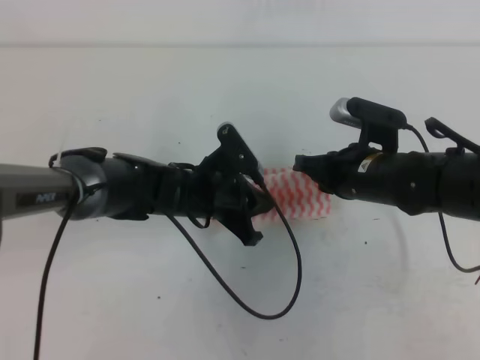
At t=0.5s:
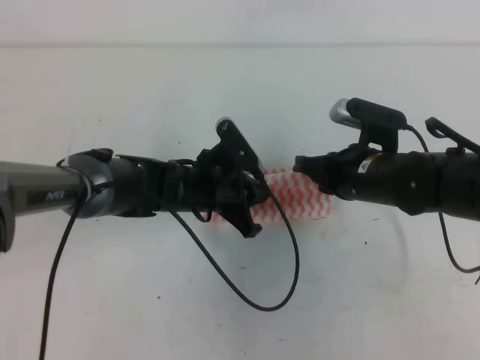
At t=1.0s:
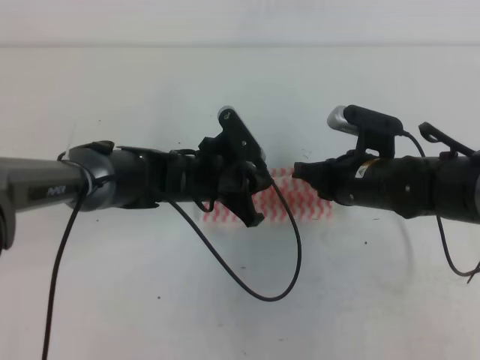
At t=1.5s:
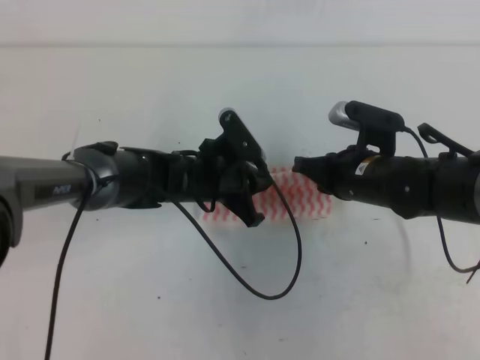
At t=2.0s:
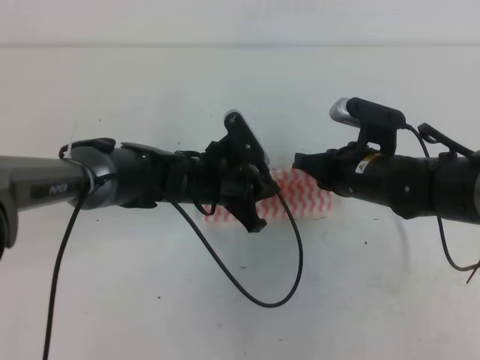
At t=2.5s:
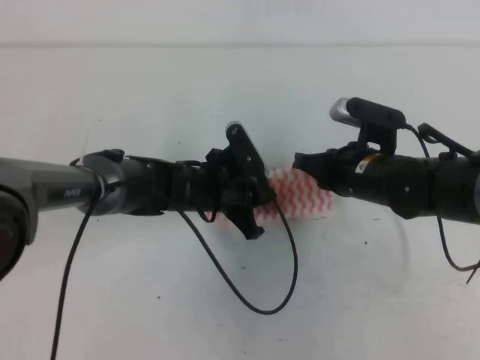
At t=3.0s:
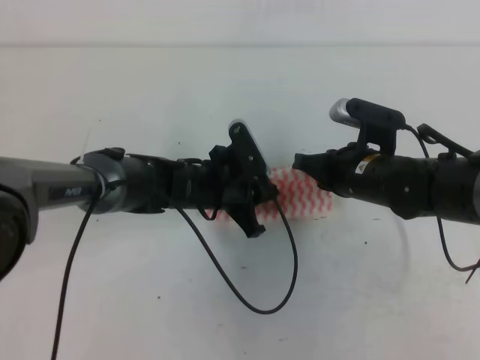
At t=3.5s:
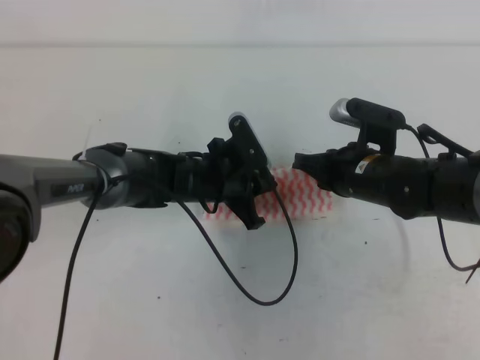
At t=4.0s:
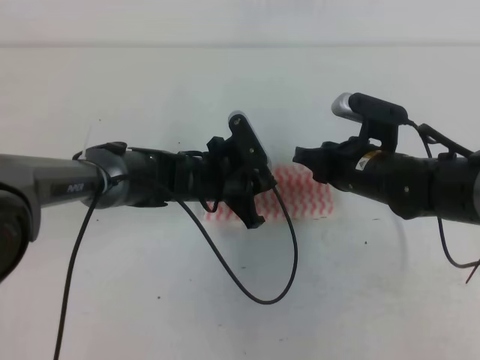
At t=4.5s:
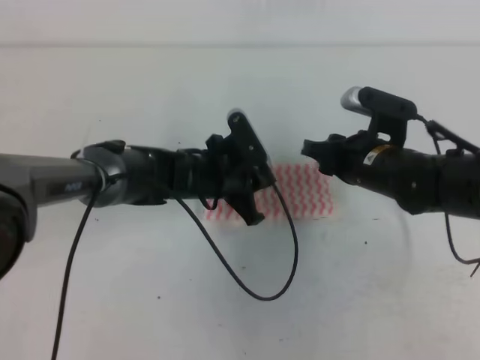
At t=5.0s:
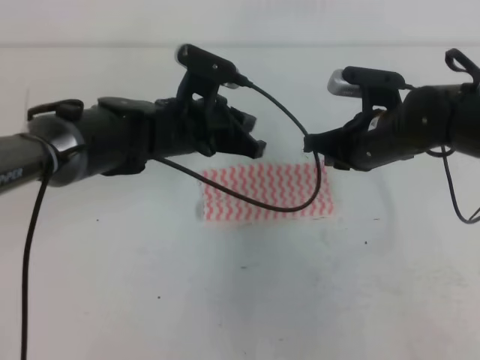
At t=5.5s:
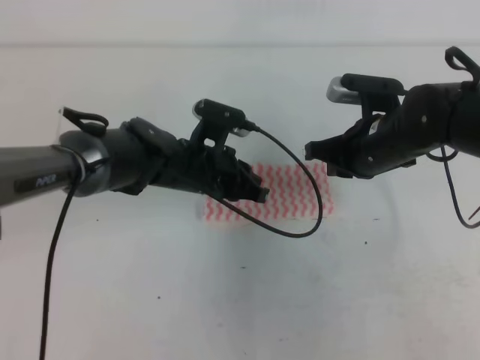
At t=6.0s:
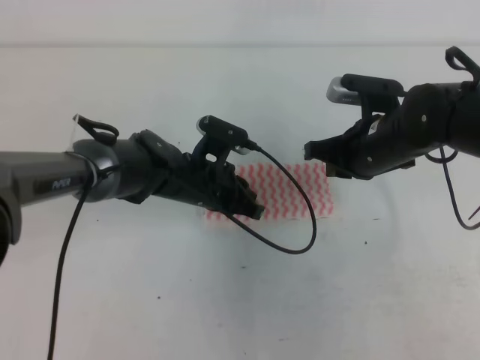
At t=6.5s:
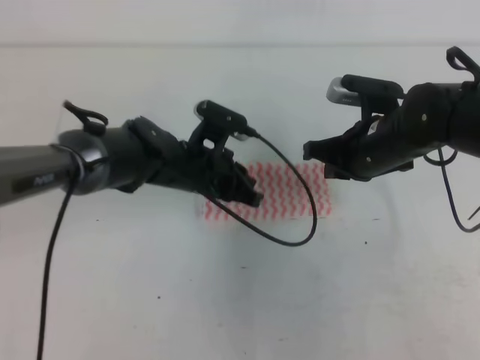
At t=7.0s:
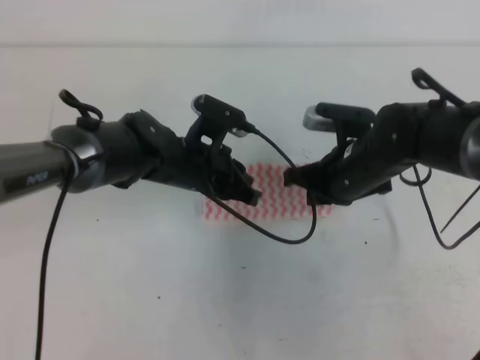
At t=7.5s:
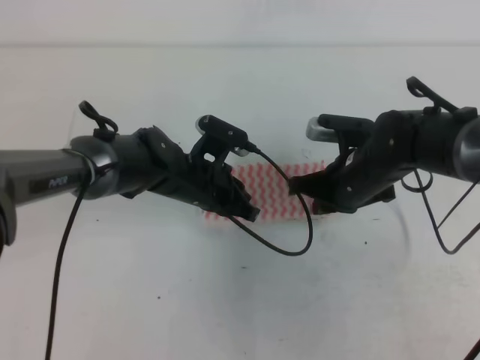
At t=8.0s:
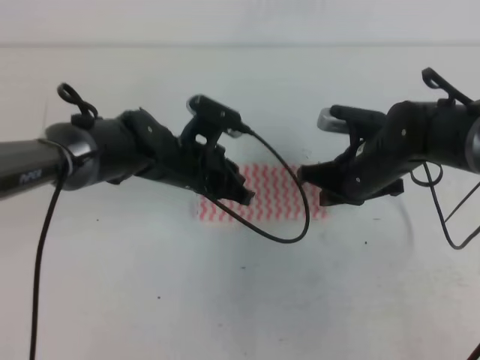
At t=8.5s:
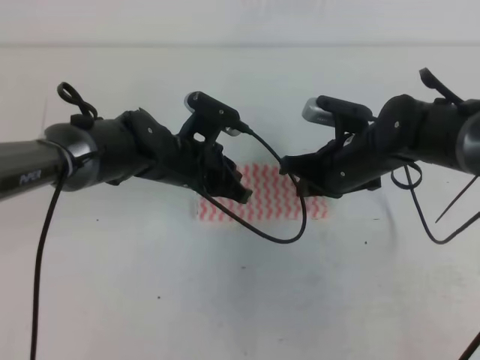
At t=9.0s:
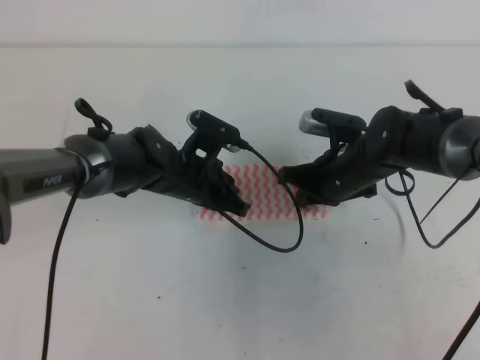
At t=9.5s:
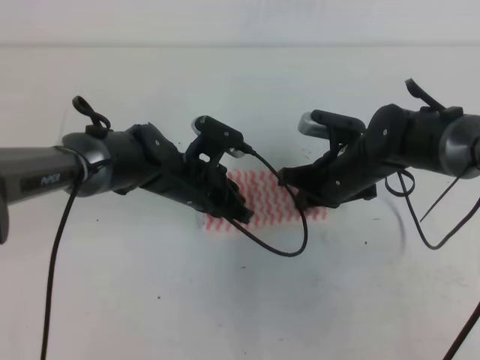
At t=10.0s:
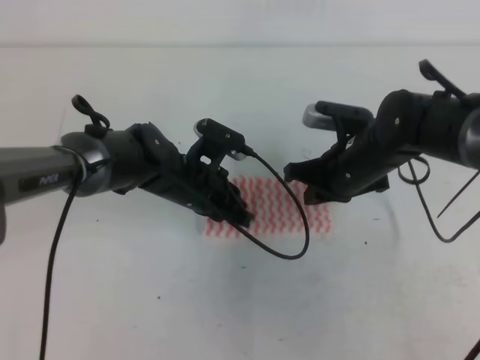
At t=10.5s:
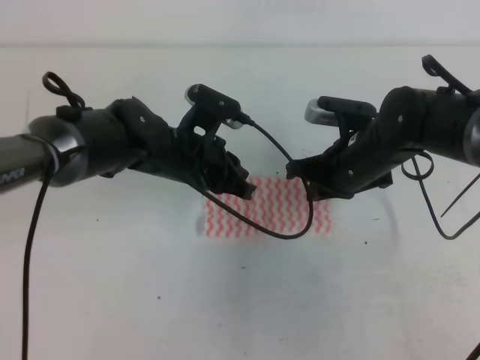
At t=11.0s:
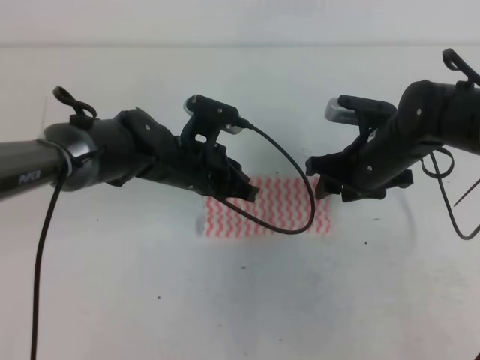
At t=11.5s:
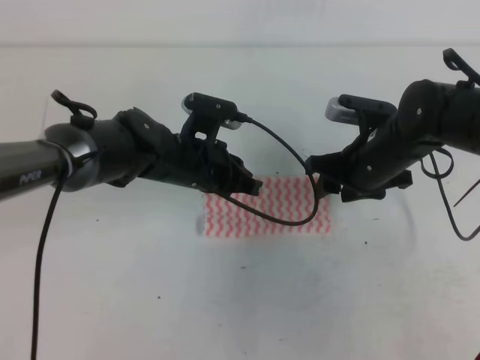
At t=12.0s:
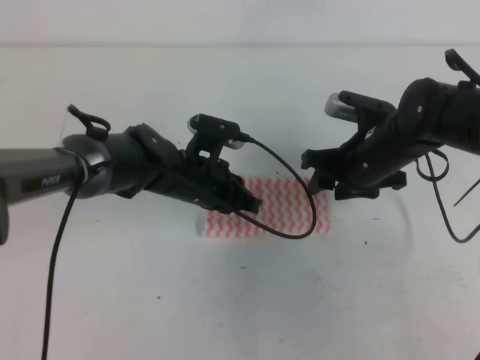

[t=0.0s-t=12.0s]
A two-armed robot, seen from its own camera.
Step, t=0.0s to t=5.0s: Fold the towel from right to left with the right gripper.
Step, t=5.5s to t=9.0s: Tidy up the towels.
t=0.0s to t=2.0s: The grippers move only a little.
t=2.0s to t=4.0s: The right gripper opens its fingers.
t=4.0s to t=6.0s: The right gripper closes its fingers. Meanwhile the left gripper travels upward and back again, some 10 cm each way.
t=8.0s to t=10.0s: There are only small adjustments of the grippers.
t=10.0s to t=12.0s: The right gripper opens up.

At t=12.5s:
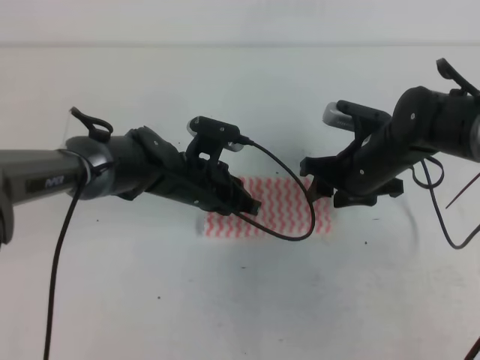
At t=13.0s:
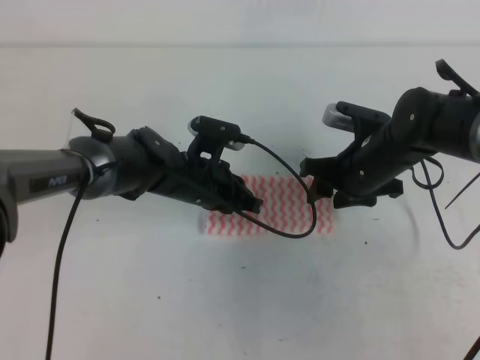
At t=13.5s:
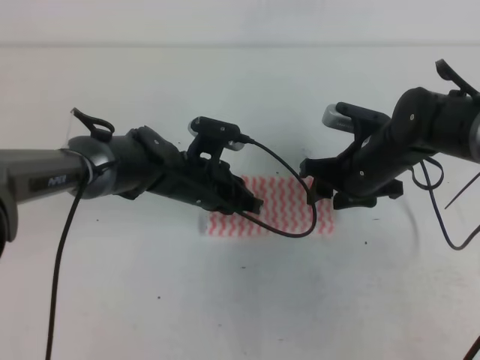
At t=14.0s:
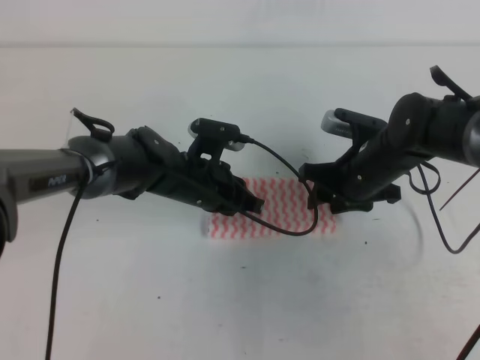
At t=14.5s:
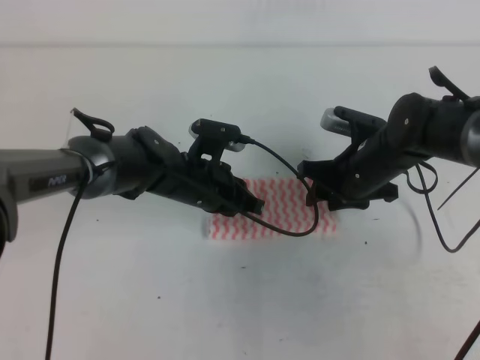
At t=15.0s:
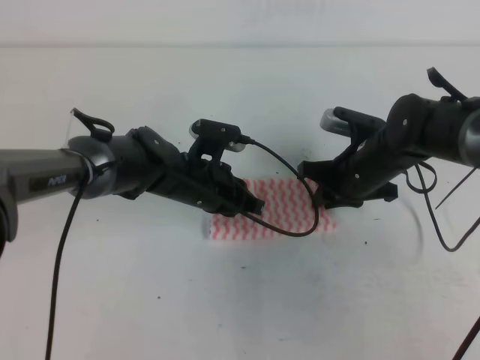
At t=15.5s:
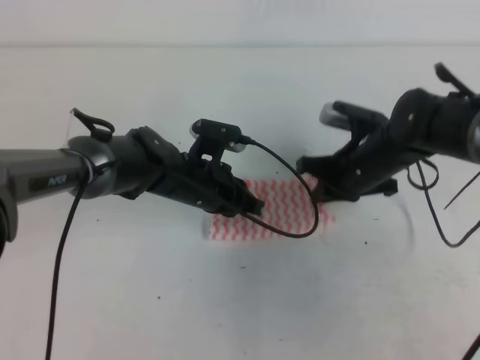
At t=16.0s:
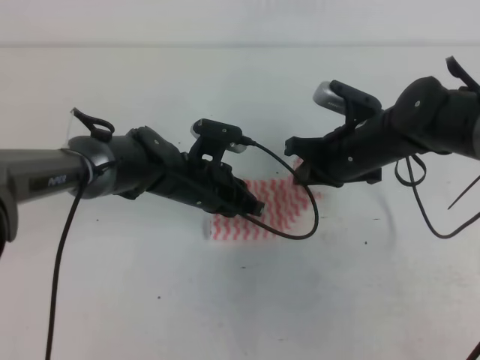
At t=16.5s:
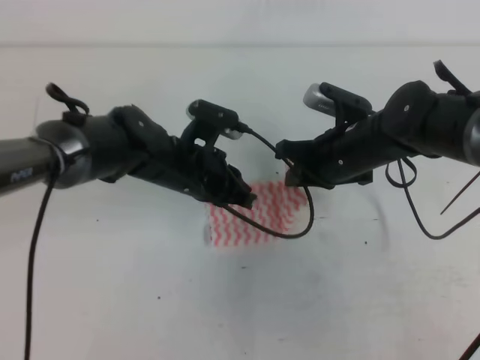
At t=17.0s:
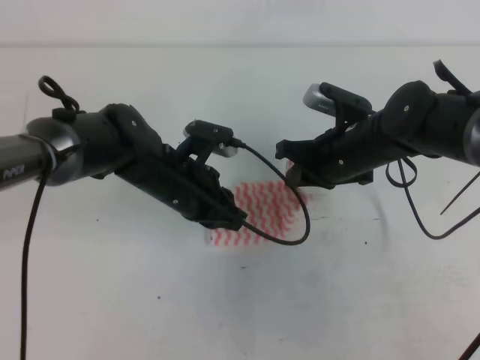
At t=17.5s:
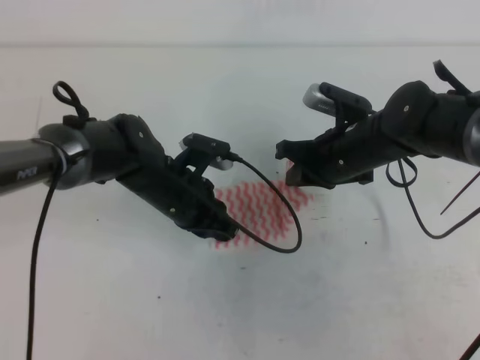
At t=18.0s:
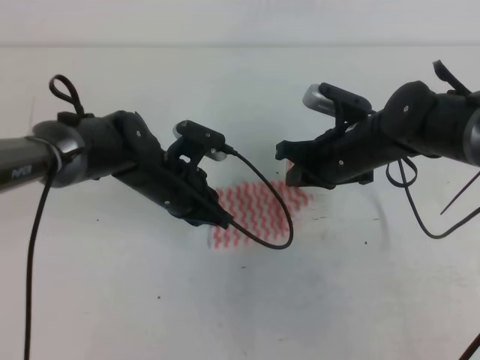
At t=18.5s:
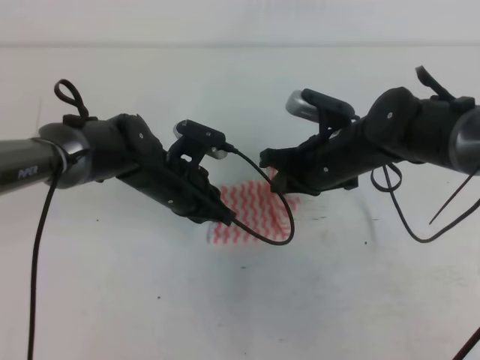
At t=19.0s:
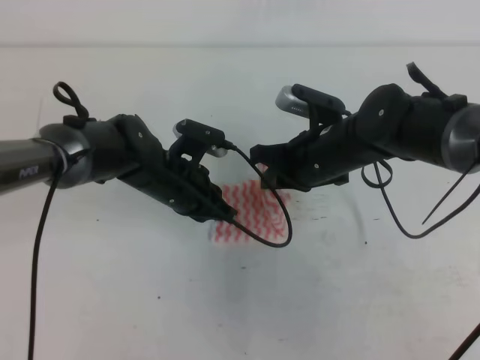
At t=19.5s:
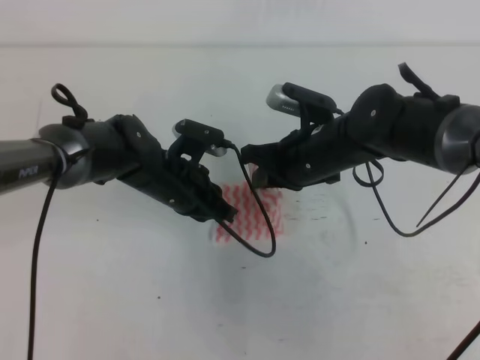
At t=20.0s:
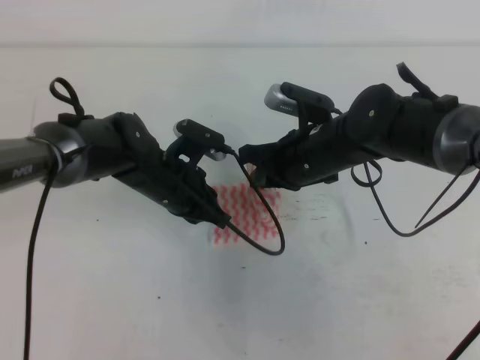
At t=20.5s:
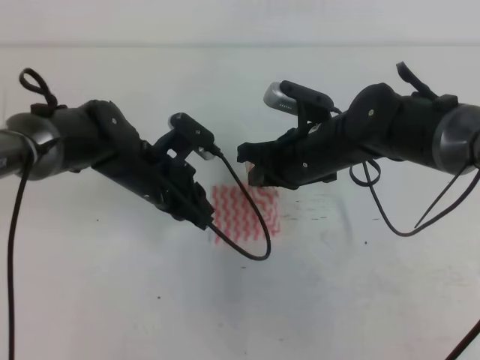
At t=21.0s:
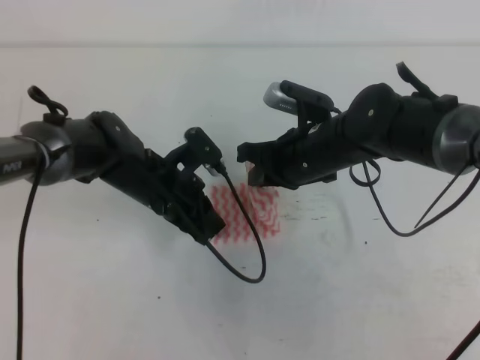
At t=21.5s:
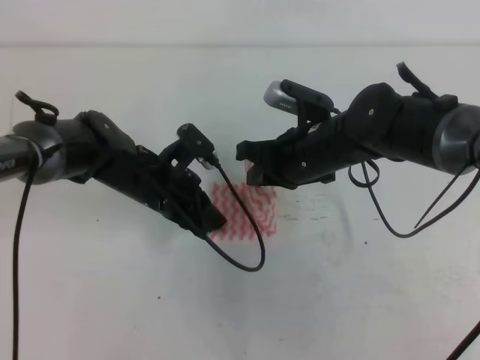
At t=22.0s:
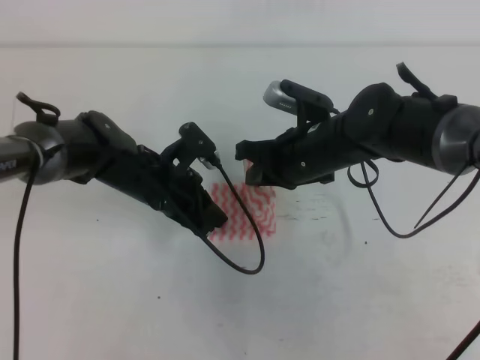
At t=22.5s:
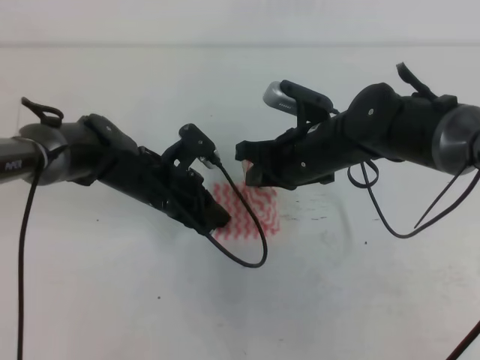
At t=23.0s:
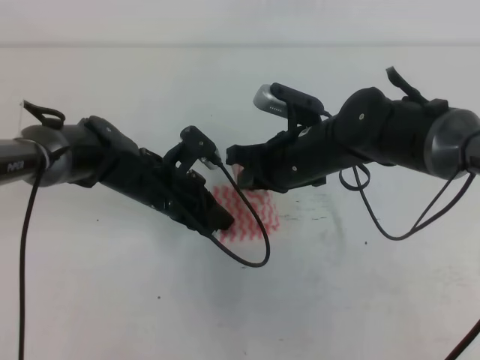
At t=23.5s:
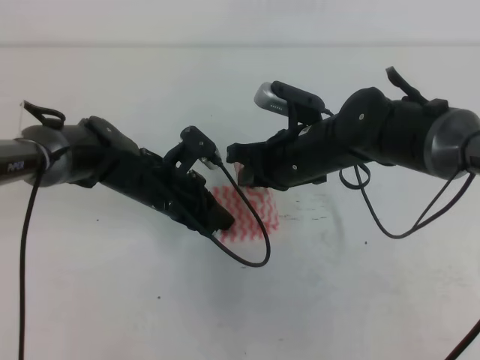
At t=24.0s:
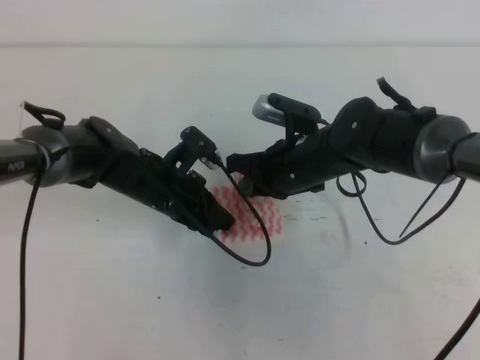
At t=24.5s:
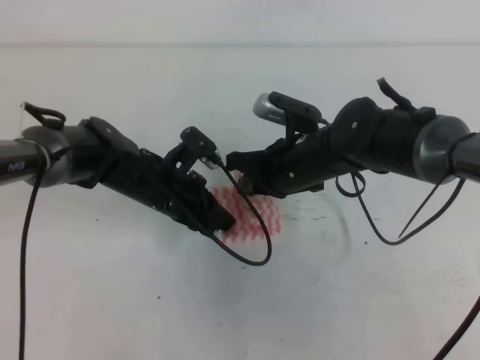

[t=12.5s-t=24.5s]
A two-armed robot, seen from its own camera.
t=12.5s to t=14.5s: The grippers stay close to where they were, moving slightly.
t=14.5s to t=16.5s: The right gripper closes its fingers.
t=16.5s to t=20.5s: The grippers make only small movements.
t=20.5s to t=24.5s: The grippers stay close to where they were, moving slightly.

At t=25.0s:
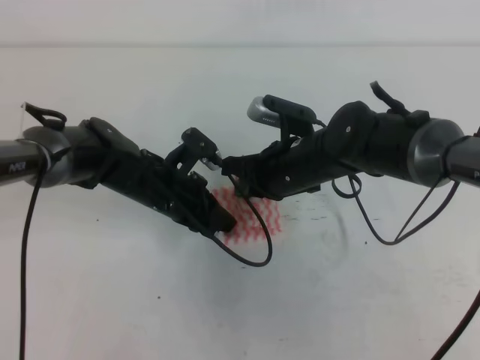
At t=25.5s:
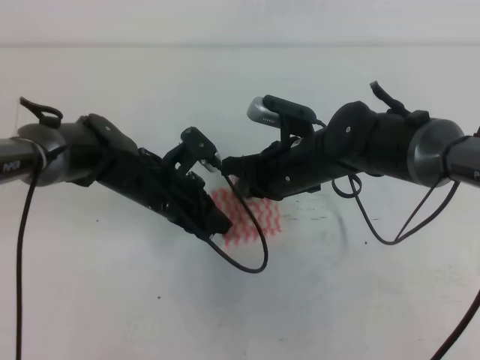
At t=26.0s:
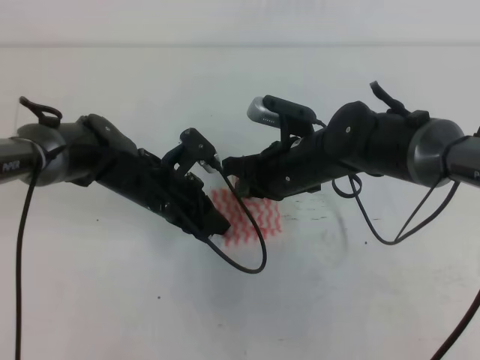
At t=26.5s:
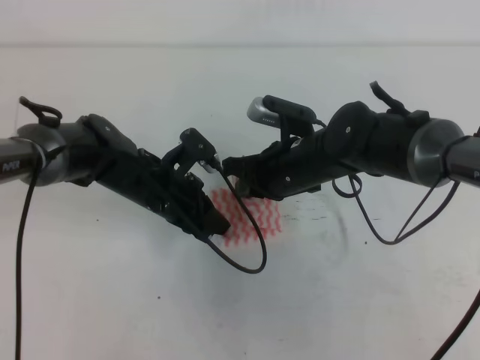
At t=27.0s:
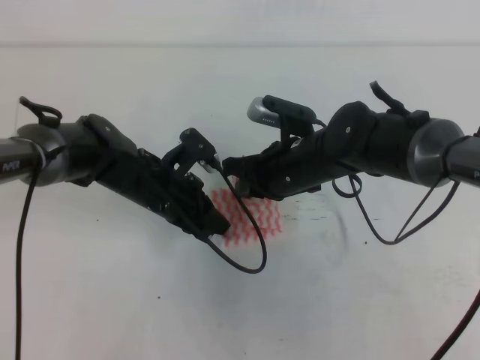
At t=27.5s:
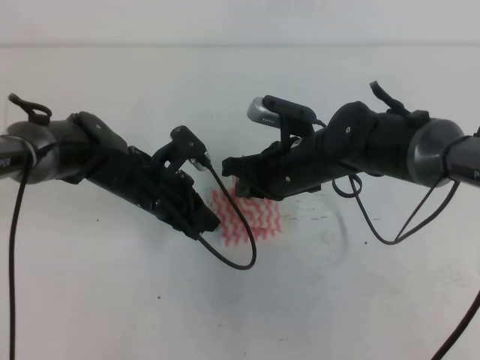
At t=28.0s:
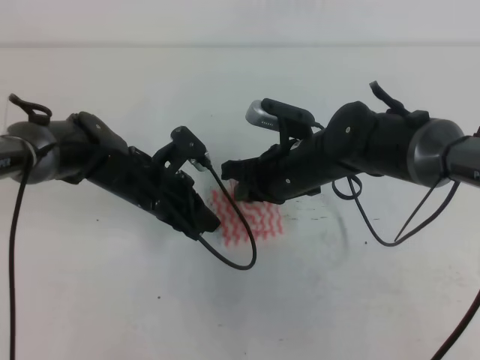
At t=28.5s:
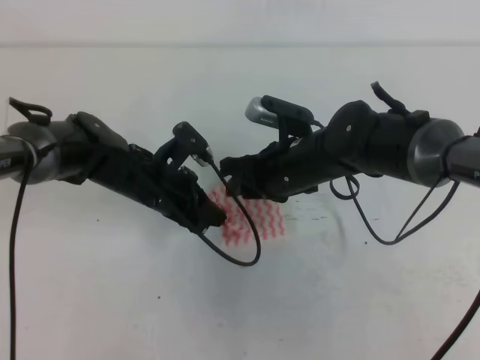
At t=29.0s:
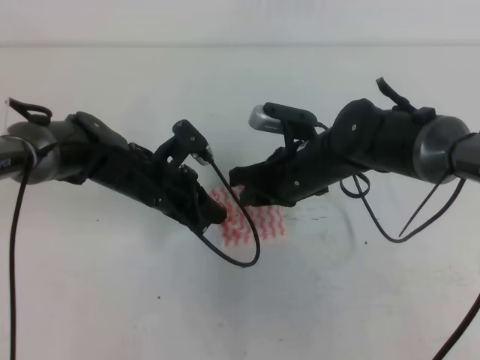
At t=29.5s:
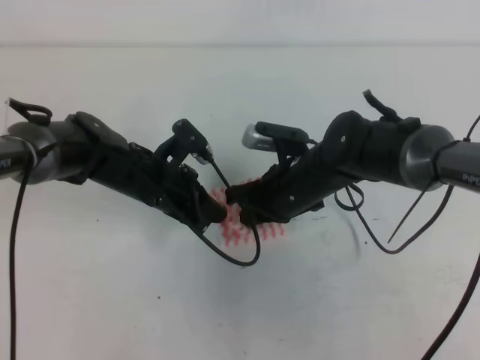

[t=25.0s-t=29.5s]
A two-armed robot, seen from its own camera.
t=25.0s to t=27.0s: Both grippers stay put.
t=27.0s to t=29.5s: The right gripper opens, then closes again.
